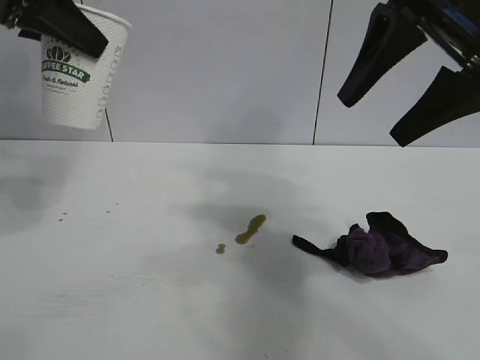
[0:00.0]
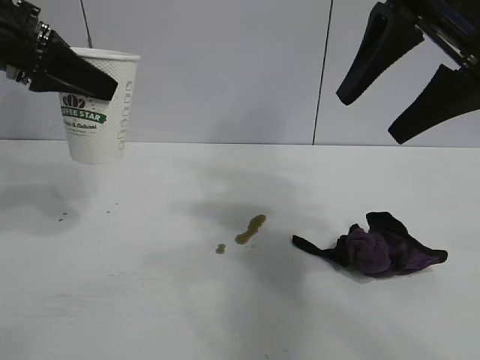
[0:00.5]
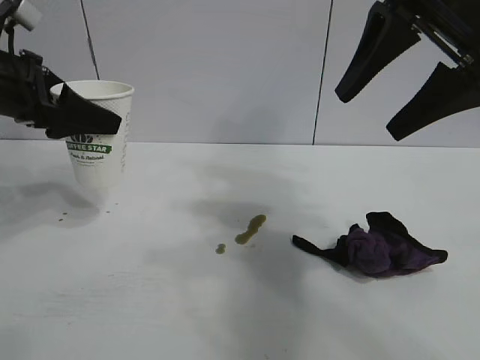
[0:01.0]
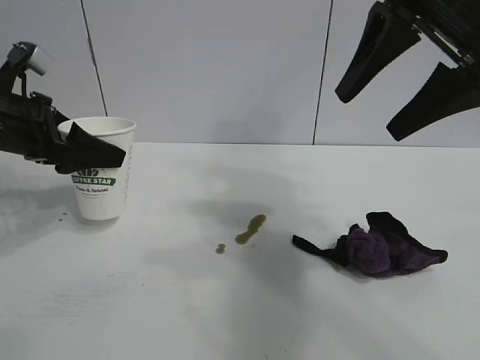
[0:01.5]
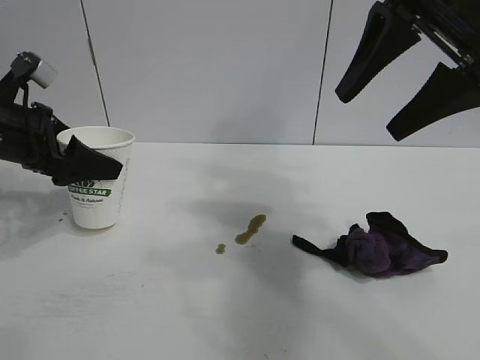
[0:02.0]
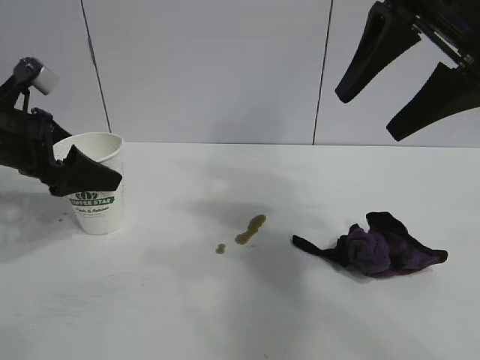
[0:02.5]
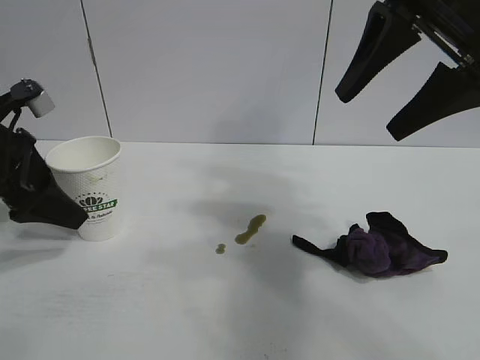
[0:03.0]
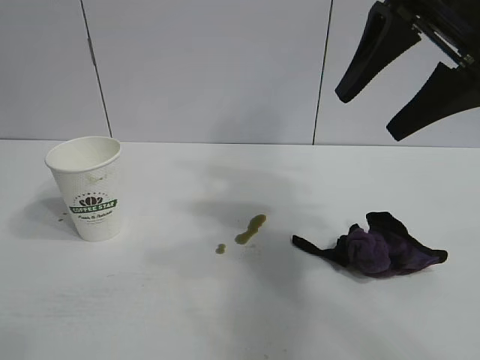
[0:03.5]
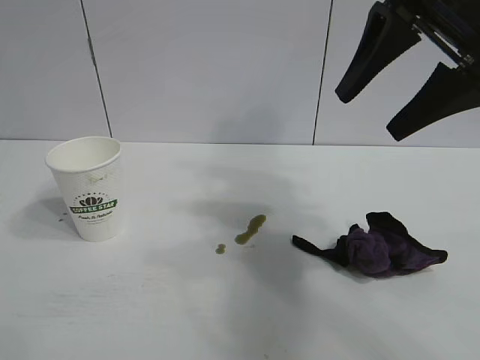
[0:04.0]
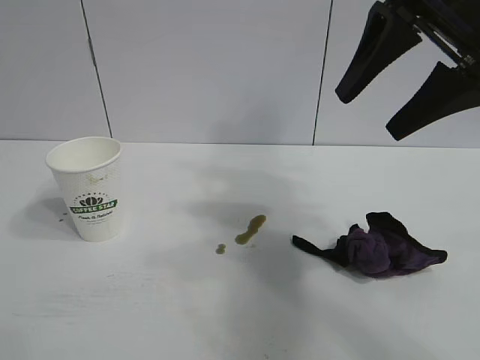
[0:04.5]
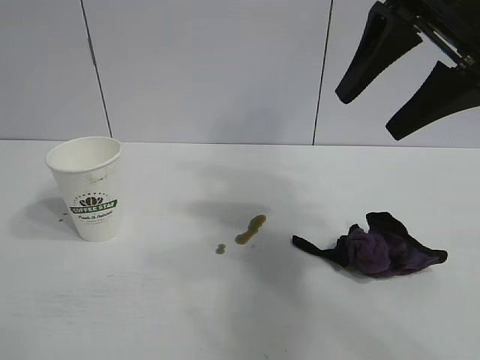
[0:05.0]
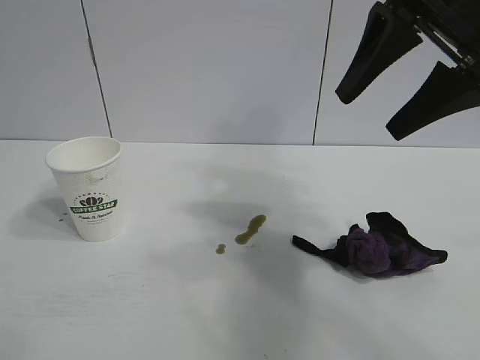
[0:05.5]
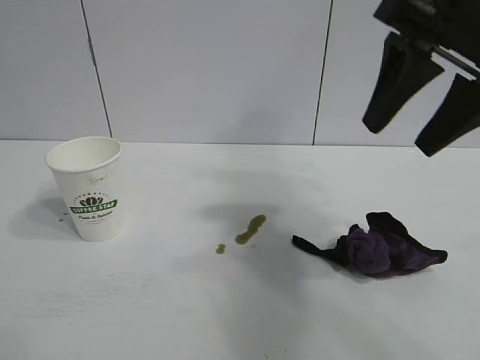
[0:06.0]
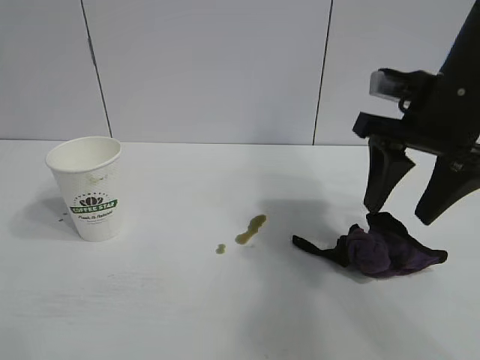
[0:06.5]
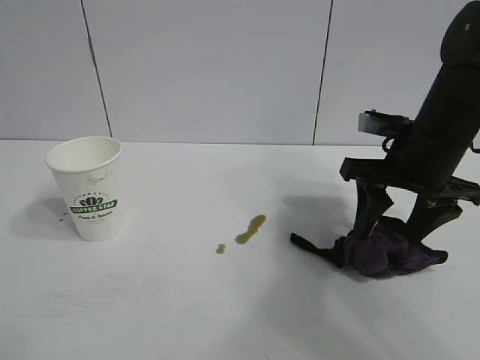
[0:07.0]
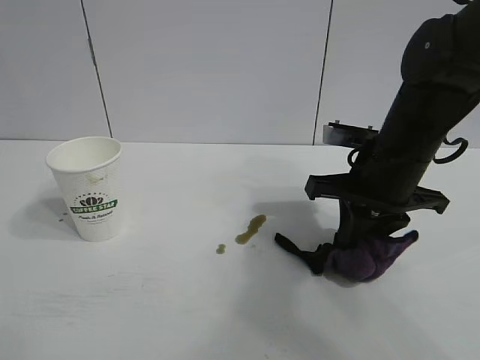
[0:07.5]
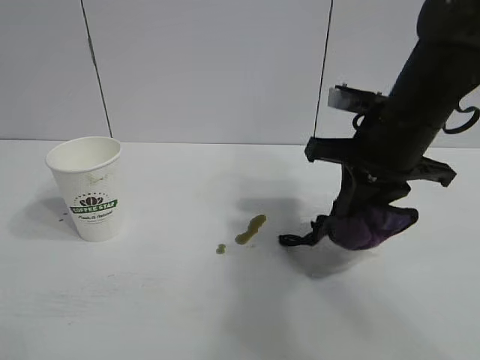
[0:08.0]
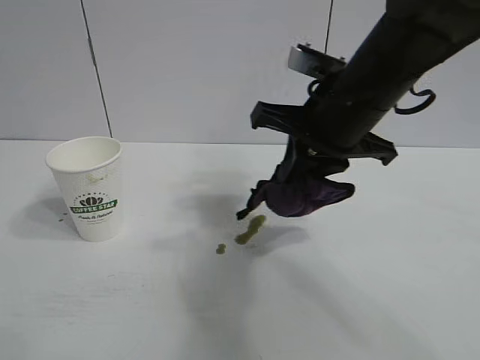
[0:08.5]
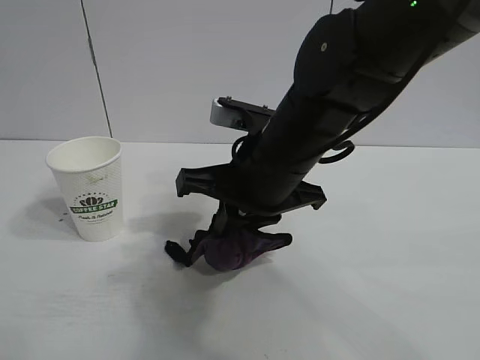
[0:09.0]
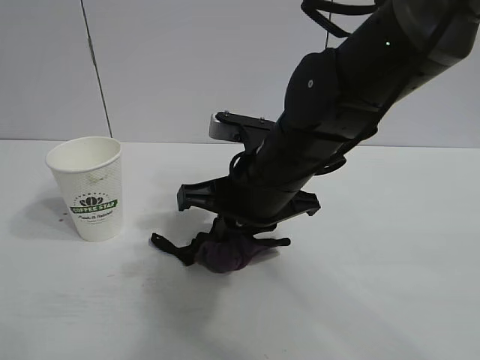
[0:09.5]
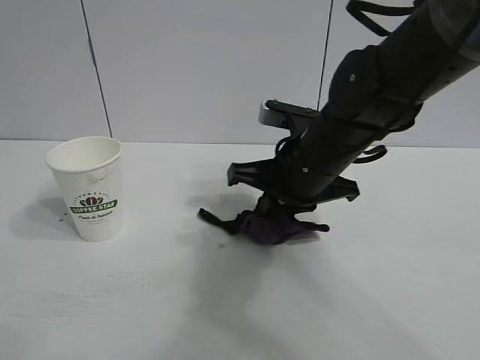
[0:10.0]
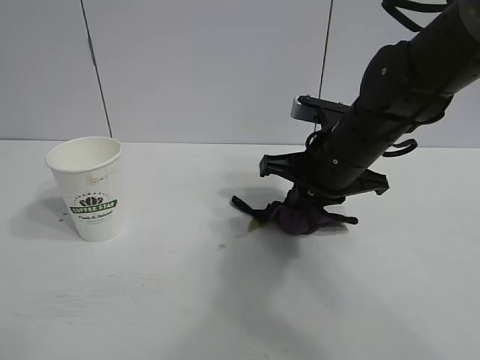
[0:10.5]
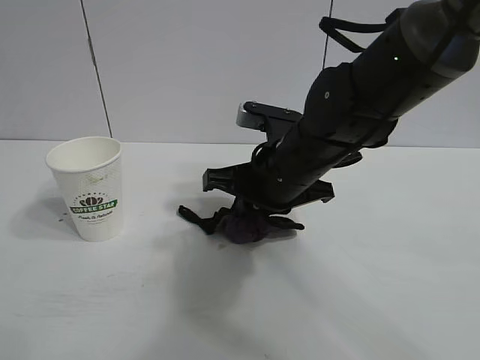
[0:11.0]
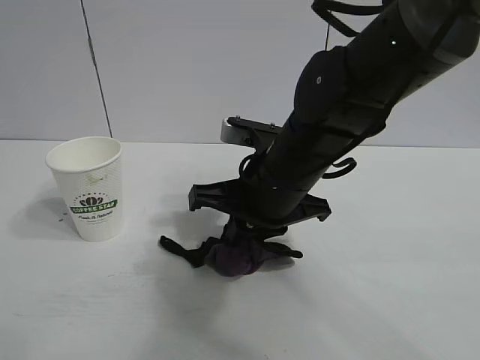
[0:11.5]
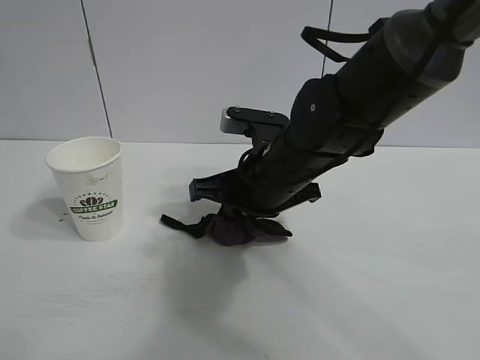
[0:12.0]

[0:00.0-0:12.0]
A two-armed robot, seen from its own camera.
Task of the whole recording: the left gripper pick up the fallen cup and place it upright, the right gripper grasp the black rag and wipe the stain on the table, the right gripper put the black rag back in its original position.
Step, 0:00.0 to 0:02.0: Stand the paper cup upright with left gripper.
Step, 0:03.0 to 0:07.5: Grasp the rag with right gripper.

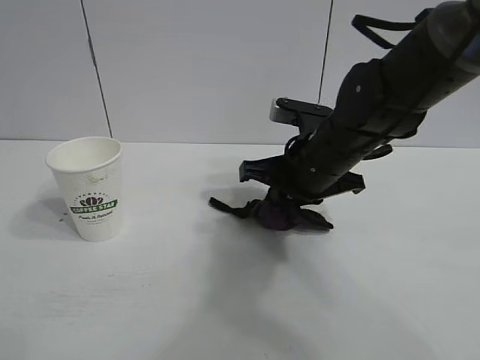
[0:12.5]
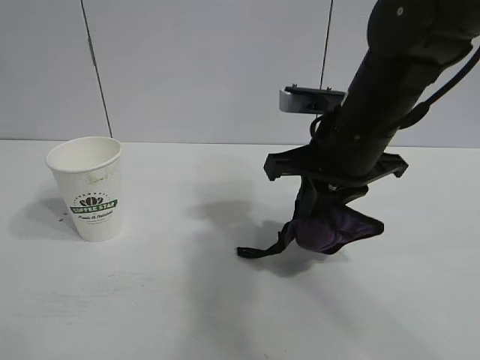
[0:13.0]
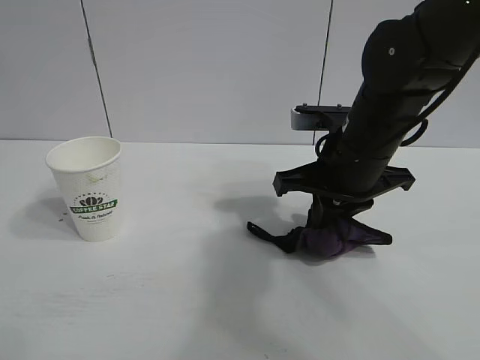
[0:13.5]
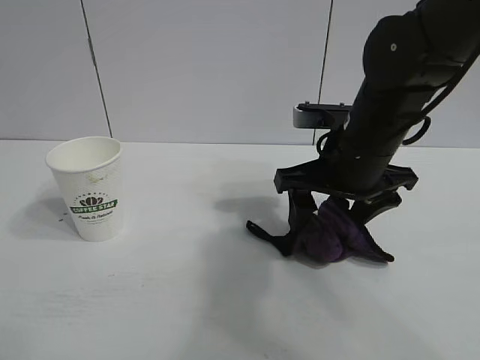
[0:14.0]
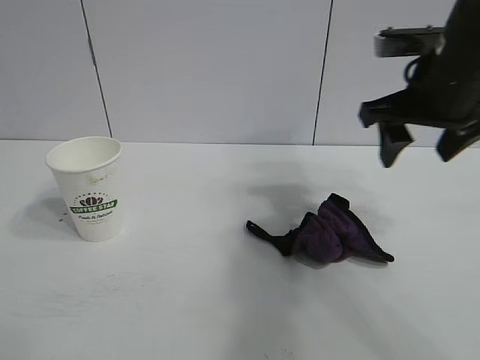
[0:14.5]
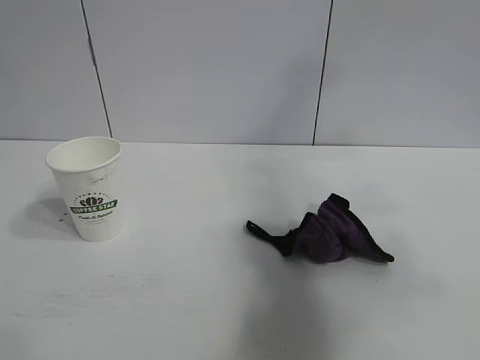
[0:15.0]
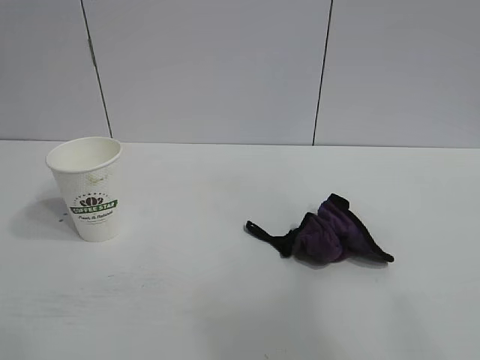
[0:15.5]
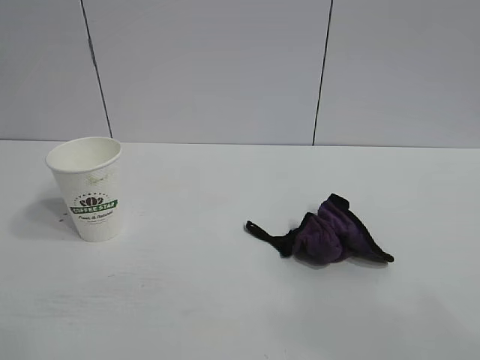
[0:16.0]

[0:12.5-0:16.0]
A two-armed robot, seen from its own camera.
Task of the whole recording: the left gripper pick up the fallen cup and place it upright, the right gripper grasp the black rag and wipe the stain on the table, the right gripper put the black rag back in its original position.
Step, 0:13.0 to 0:13.5: Place the rag on the table with right gripper.
